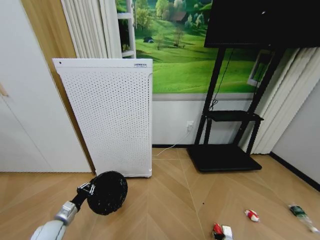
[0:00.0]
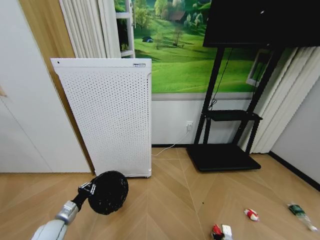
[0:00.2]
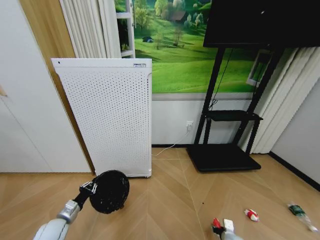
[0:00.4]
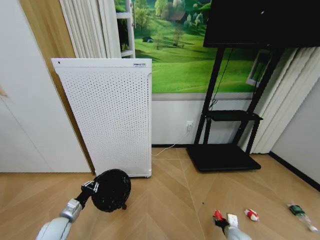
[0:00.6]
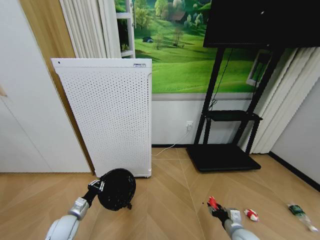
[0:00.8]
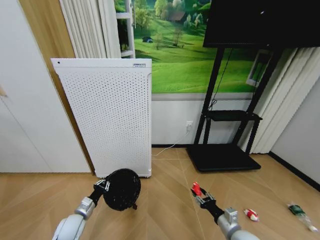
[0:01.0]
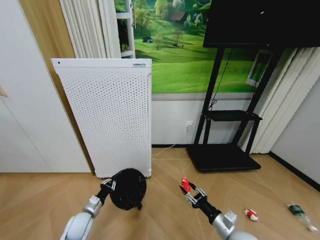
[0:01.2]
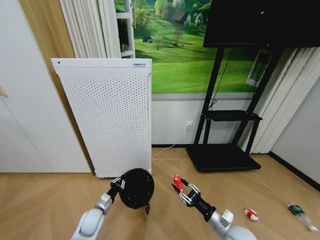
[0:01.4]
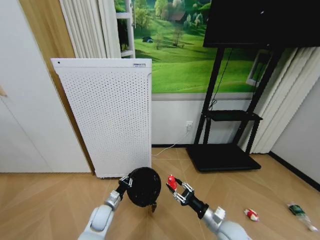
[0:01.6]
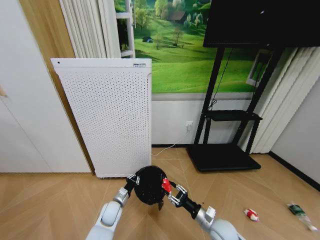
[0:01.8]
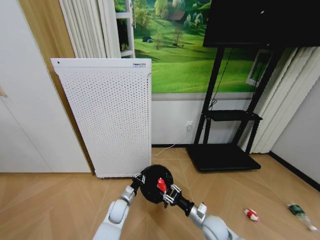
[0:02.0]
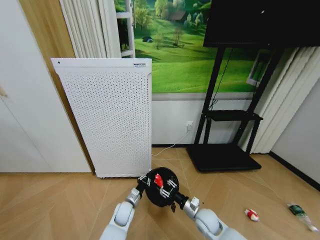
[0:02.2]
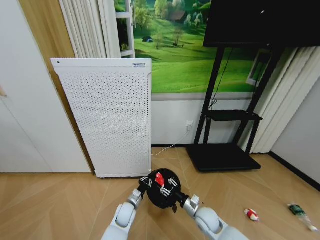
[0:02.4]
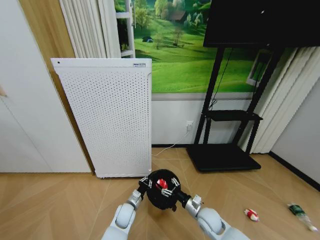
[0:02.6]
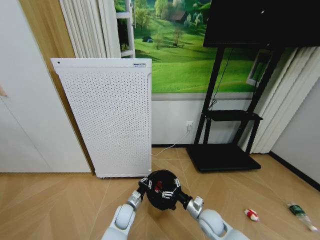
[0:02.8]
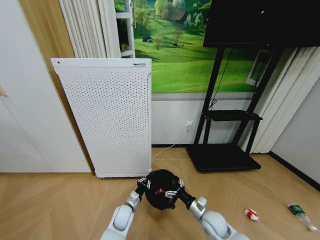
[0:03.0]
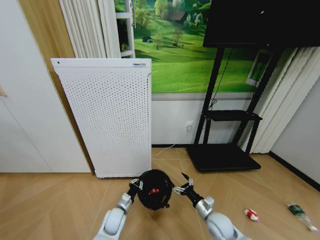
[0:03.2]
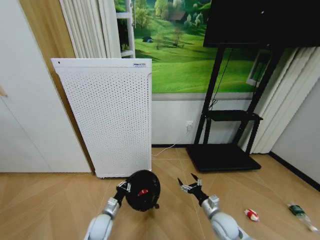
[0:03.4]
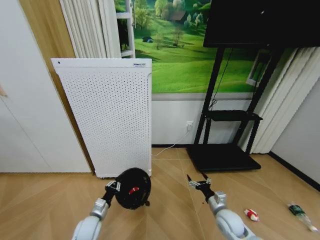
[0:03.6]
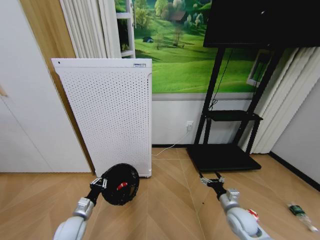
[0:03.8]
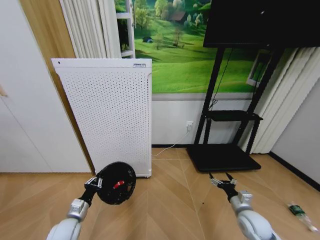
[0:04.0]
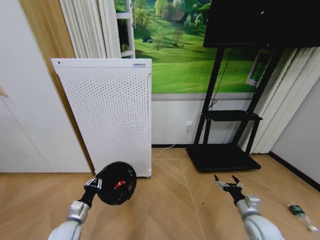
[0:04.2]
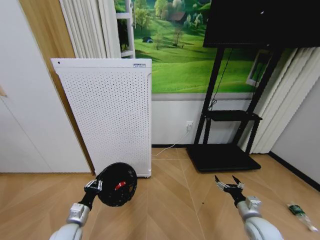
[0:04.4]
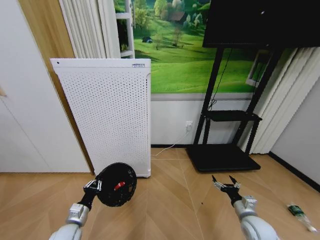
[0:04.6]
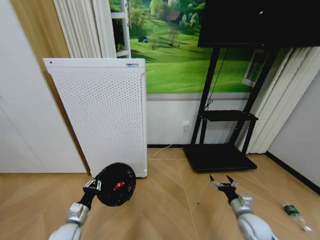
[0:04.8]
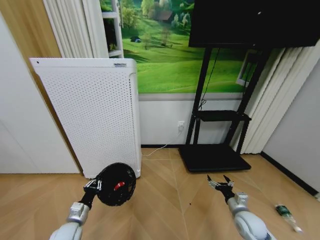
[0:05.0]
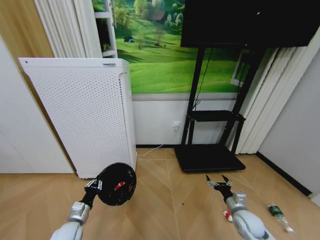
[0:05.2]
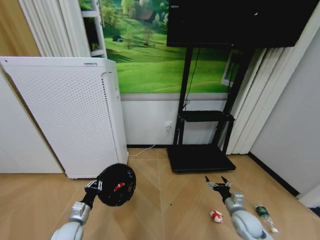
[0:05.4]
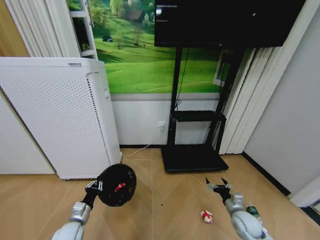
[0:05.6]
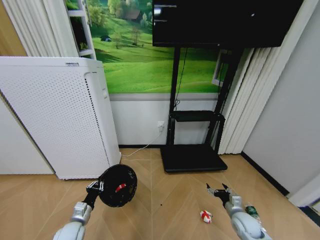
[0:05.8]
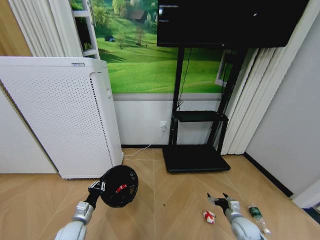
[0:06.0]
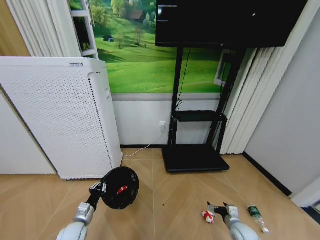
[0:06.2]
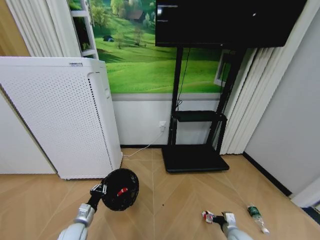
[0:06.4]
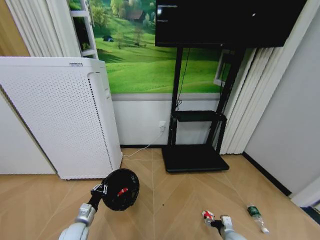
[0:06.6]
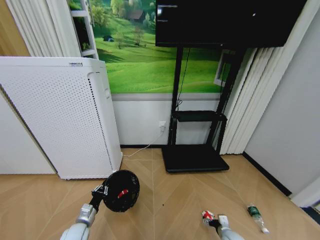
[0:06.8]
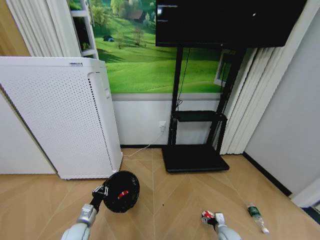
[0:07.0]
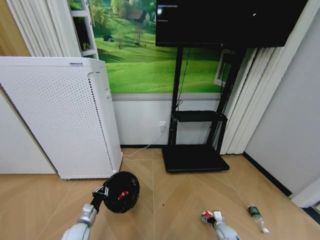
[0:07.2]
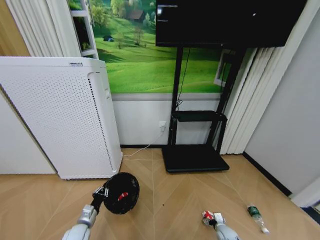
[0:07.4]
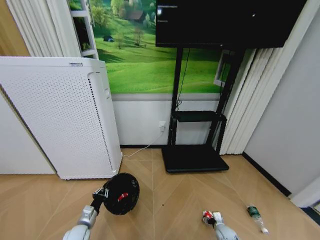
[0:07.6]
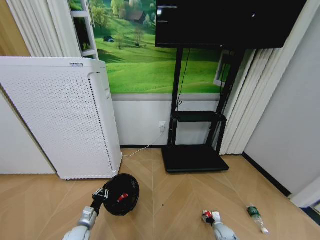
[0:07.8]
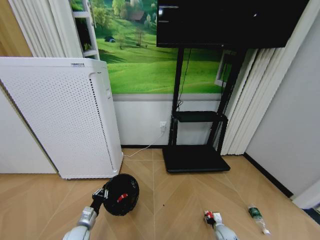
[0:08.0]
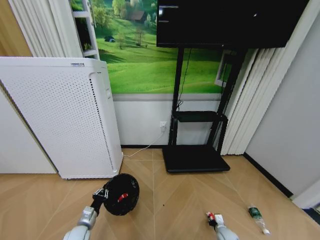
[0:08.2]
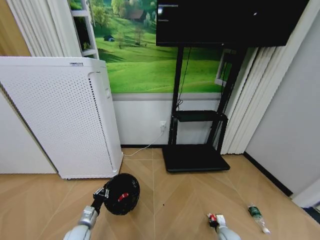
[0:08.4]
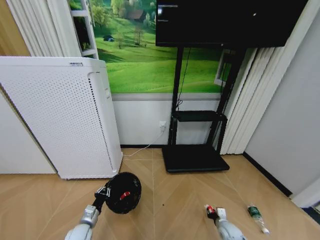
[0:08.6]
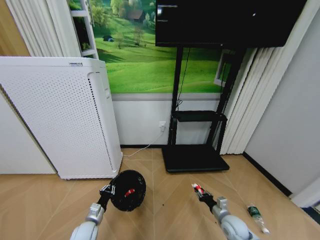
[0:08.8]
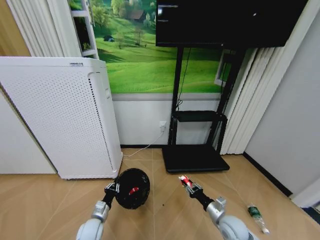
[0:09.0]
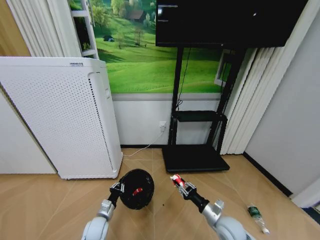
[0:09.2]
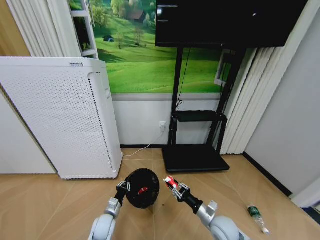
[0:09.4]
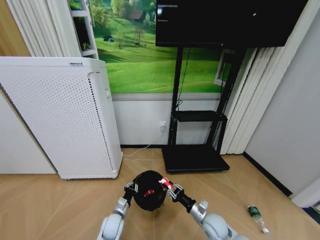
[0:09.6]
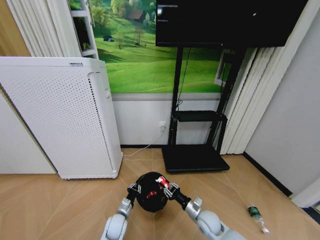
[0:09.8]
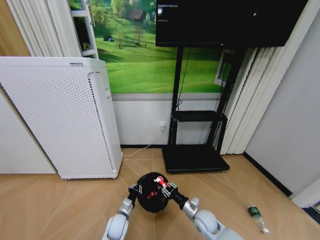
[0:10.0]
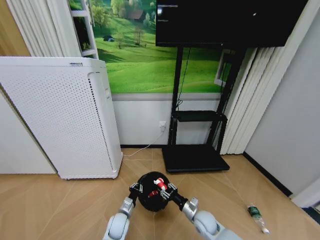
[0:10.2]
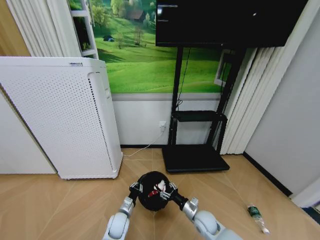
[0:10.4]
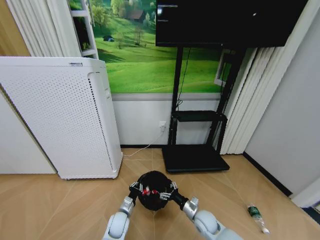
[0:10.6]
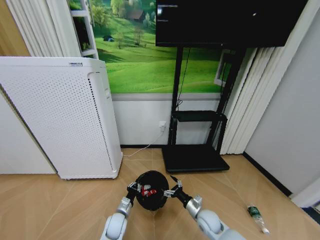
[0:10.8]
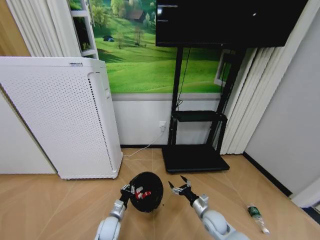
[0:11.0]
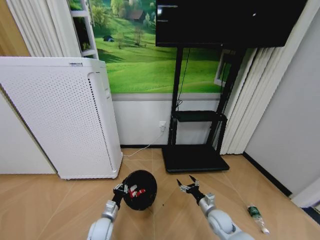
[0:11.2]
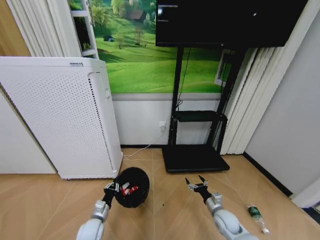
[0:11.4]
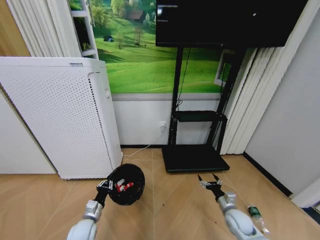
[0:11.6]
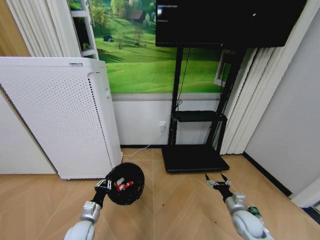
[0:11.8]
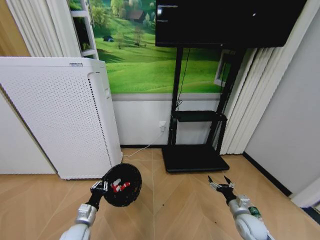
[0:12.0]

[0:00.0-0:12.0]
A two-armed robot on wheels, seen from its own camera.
Task of the whole recording: Pick up the trash bin and place the garbage on the floor into it.
0:00.0 to 0:01.6: The right gripper travels upward and to the left by about 25 cm. The left gripper is displaced to the right and forward by roughly 20 cm.
0:01.6 to 0:03.0: The right gripper moves forward, about 5 cm, and opens its fingers. The left gripper goes roughly 10 cm to the right.
0:03.0 to 0:04.4: The left gripper is displaced to the left, backward and upward by some 20 cm. The right gripper goes approximately 15 cm to the right.
0:04.4 to 0:06.0: The right gripper goes approximately 10 cm downward.
0:06.0 to 0:07.6: The right gripper moves downward, approximately 15 cm, while the left gripper travels downward by approximately 5 cm.
0:07.6 to 0:09.0: The right gripper shifts roughly 20 cm upward, and closes its fingers.
0:09.0 to 0:10.4: The right gripper shifts approximately 10 cm to the left, and opens up; the left gripper heads to the right, covering roughly 10 cm.
0:10.4 to 0:12.0: The left gripper moves to the left, upward and backward, approximately 15 cm. Meanwhile the right gripper shifts some 15 cm to the right, and opens its fingers.

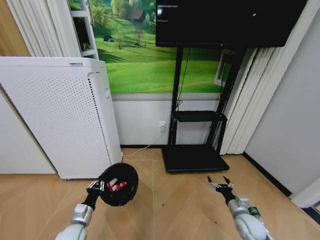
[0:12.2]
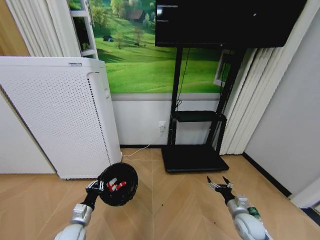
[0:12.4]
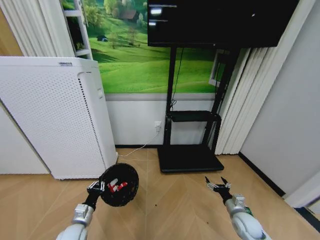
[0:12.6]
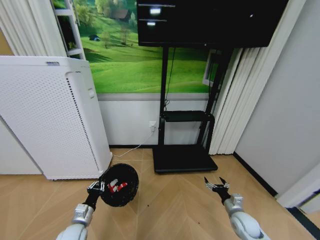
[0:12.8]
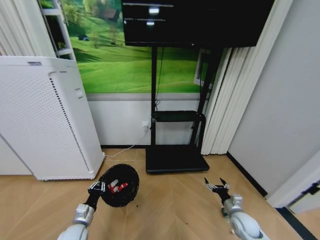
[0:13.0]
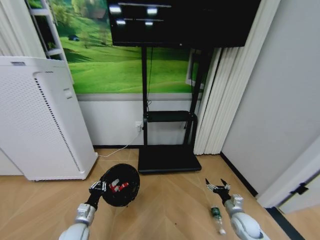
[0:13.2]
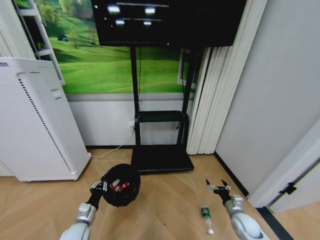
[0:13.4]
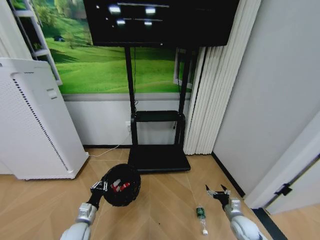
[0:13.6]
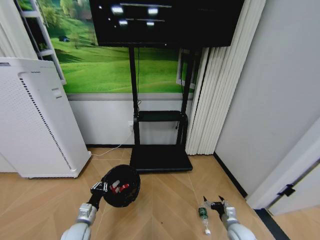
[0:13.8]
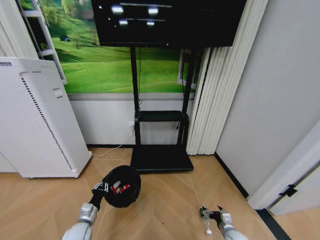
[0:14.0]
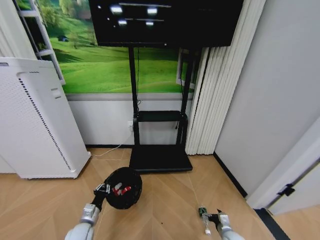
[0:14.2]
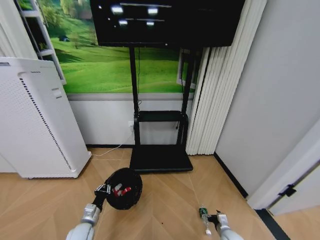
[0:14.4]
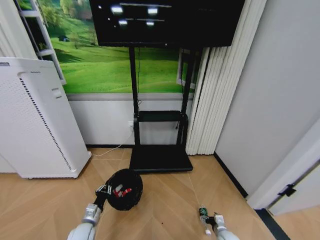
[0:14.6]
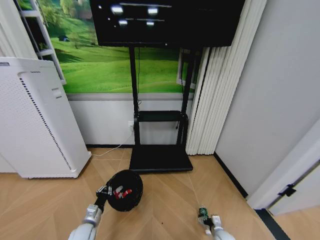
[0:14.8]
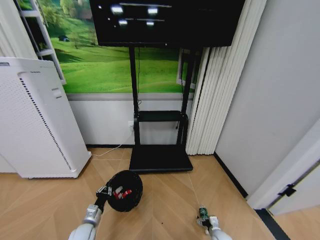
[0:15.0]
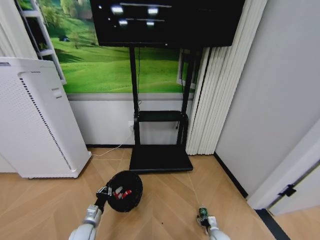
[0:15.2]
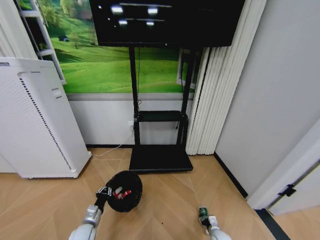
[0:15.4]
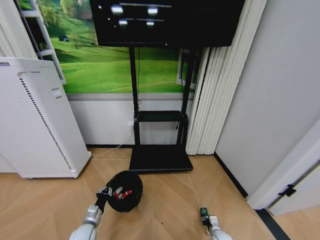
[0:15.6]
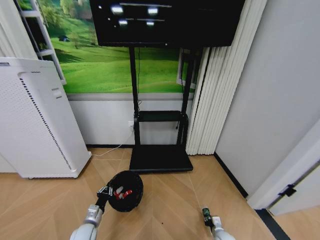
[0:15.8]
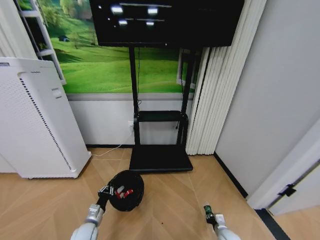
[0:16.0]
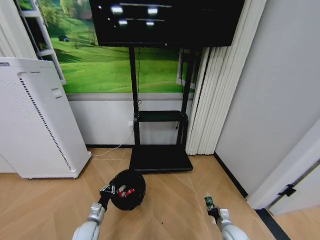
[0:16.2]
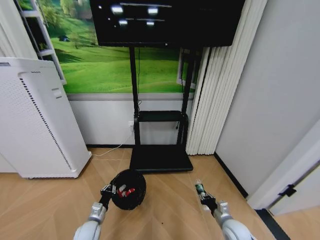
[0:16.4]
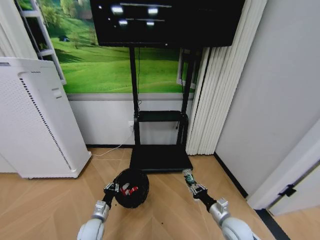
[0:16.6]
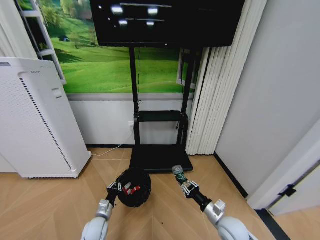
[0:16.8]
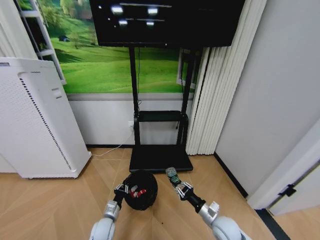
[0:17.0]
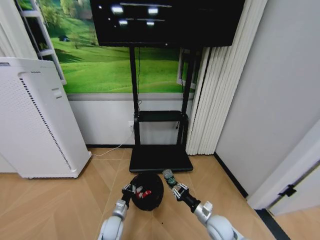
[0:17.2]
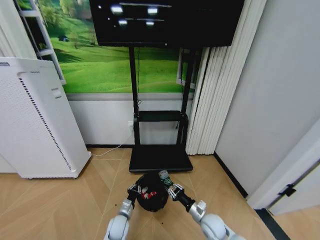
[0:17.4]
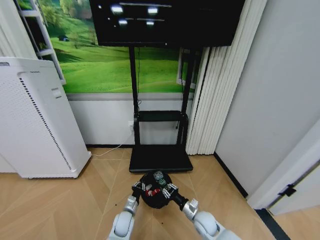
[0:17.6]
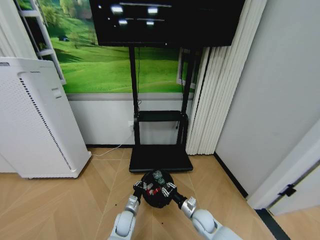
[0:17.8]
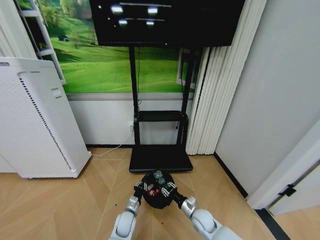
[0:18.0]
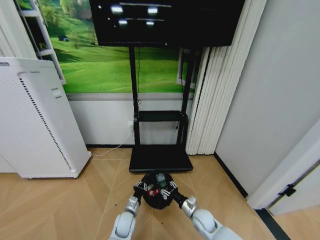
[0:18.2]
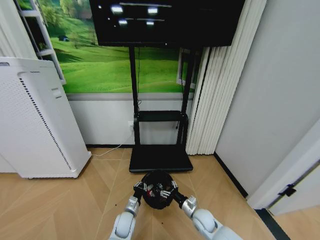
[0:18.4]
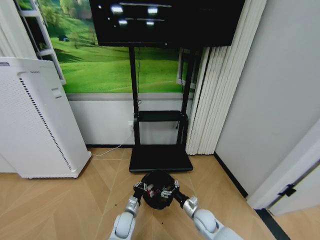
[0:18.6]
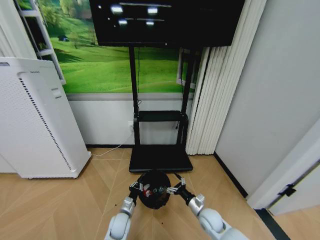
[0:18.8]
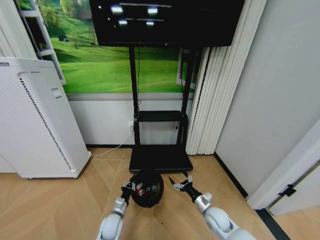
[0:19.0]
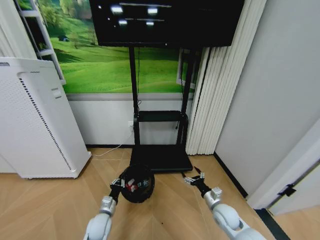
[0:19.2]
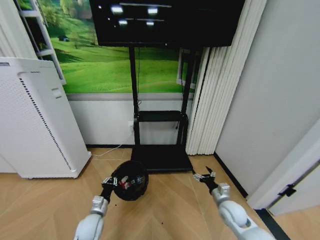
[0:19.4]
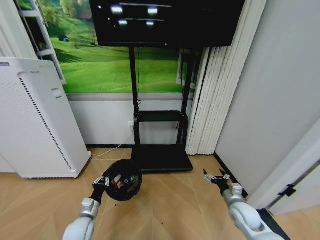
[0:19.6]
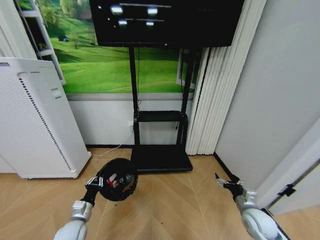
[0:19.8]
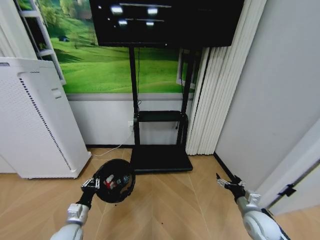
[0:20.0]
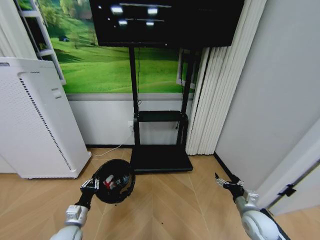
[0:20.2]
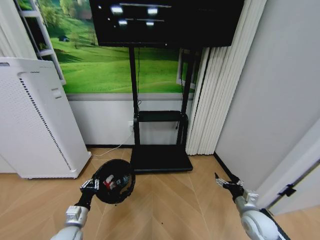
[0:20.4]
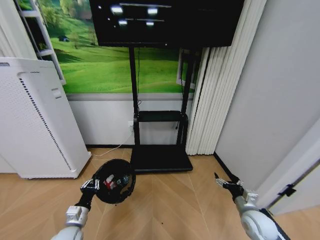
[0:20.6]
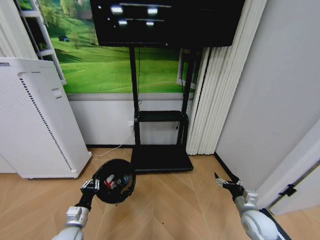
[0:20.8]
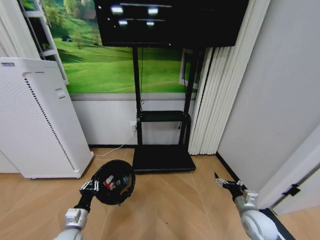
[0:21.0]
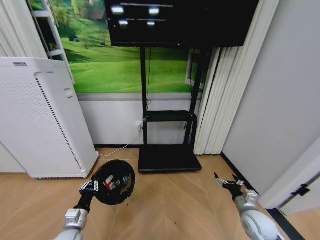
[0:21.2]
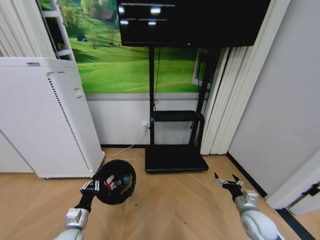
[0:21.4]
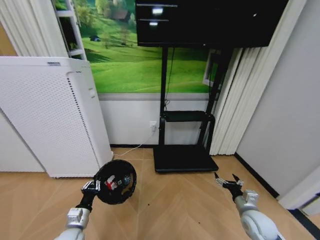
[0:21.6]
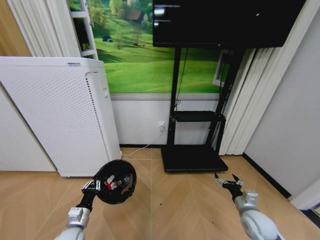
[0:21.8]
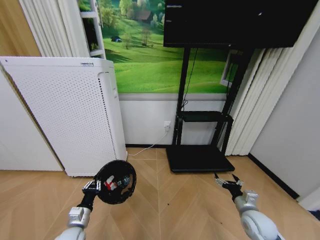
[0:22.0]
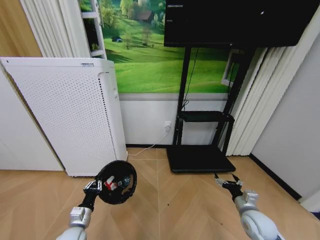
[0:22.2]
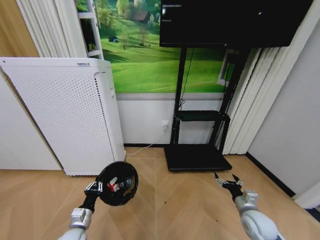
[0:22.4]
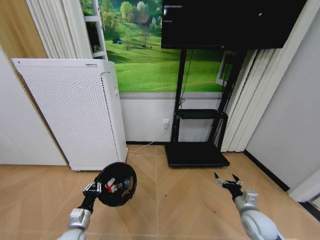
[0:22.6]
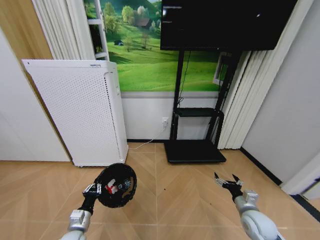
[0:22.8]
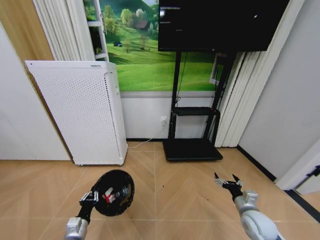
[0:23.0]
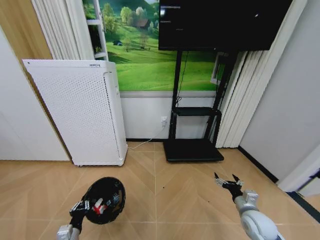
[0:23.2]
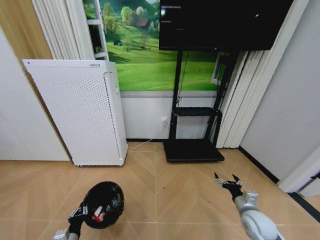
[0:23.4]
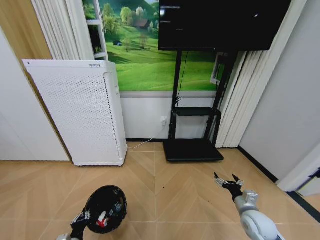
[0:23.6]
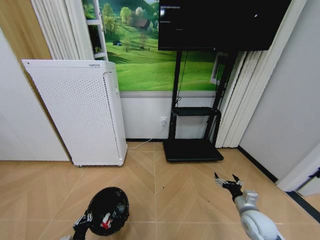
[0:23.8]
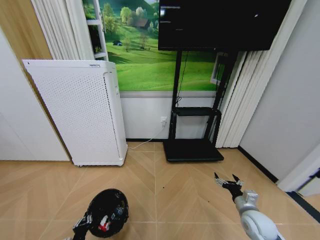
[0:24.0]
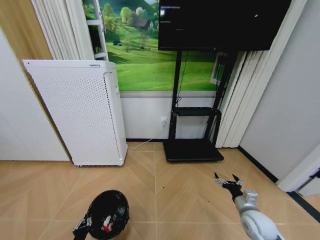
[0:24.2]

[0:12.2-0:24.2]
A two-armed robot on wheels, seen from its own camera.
Task of the whole recording: Pick up the trash bin and place the garbage on the floor into it.
0:12.2 to 0:13.8: The right gripper goes about 5 cm downward.
0:13.8 to 0:15.2: The right gripper is displaced downward by approximately 15 cm.
0:15.2 to 0:16.6: The right gripper goes some 20 cm upward, and closes.
0:16.6 to 0:18.2: The left gripper heads to the right, covering some 15 cm. The right gripper heads to the left, downward and forward, covering some 15 cm.
0:18.2 to 0:19.8: The right gripper shifts about 20 cm to the right and upward, and opens up, while the left gripper goes approximately 20 cm to the left and upward.
0:22.6 to 0:24.2: The left gripper travels downward and backward by some 10 cm.
